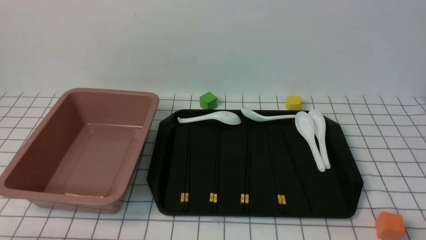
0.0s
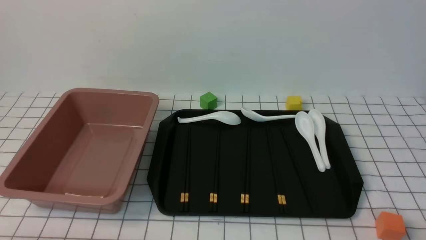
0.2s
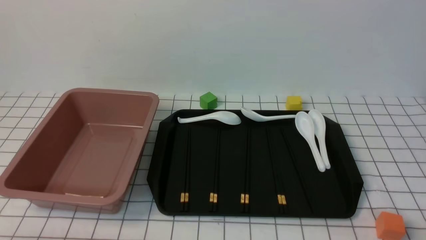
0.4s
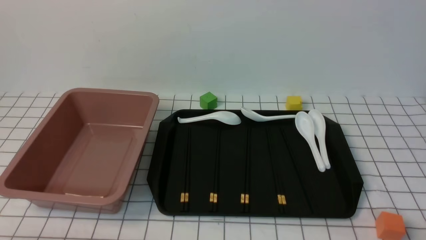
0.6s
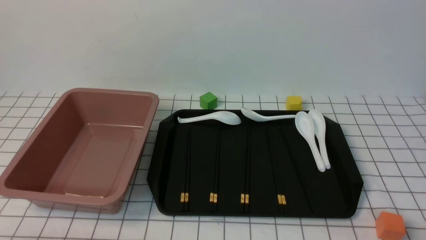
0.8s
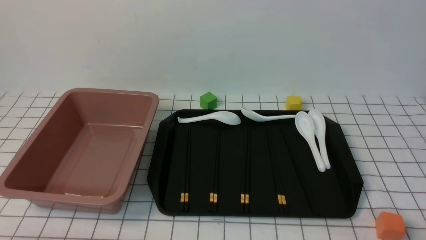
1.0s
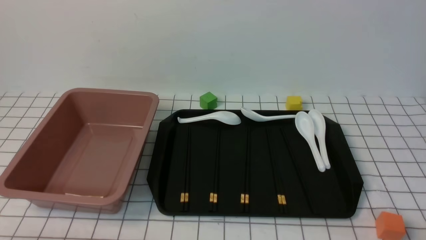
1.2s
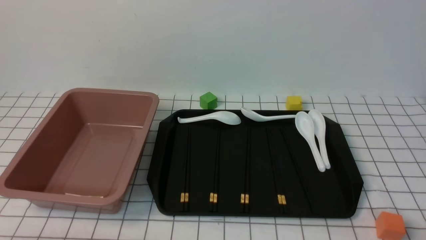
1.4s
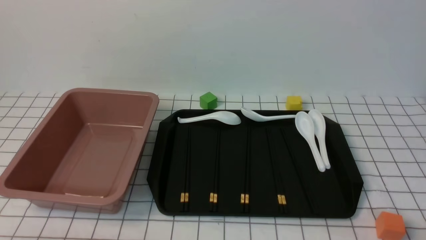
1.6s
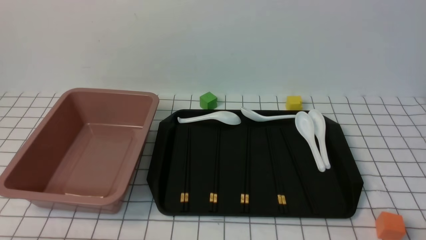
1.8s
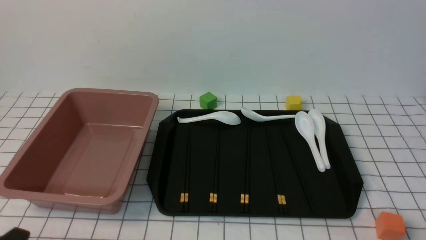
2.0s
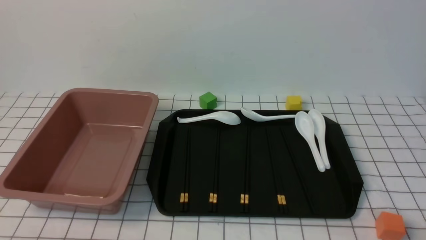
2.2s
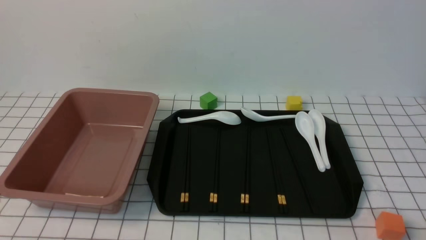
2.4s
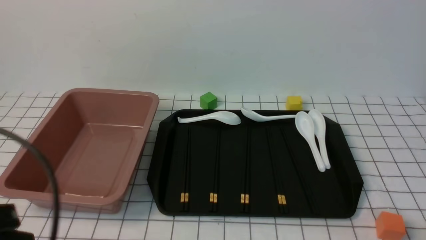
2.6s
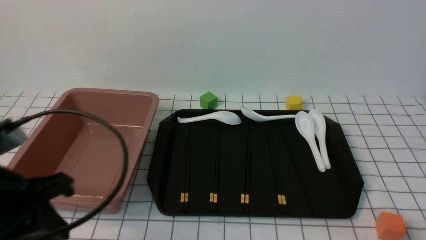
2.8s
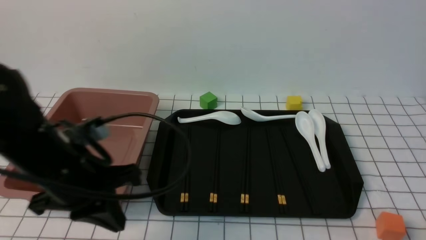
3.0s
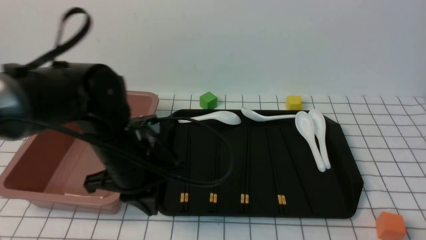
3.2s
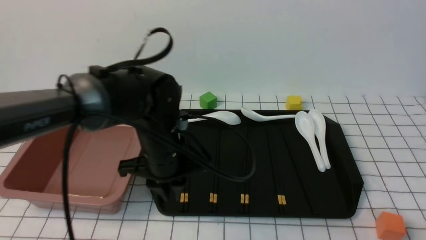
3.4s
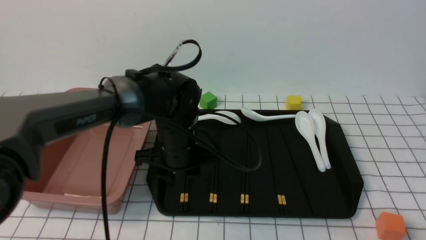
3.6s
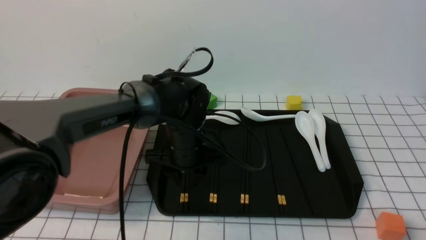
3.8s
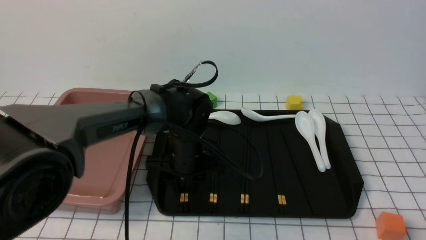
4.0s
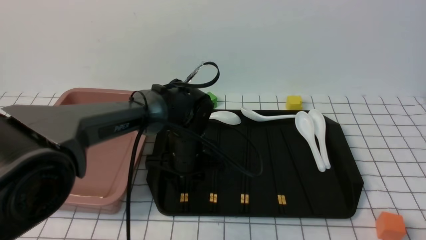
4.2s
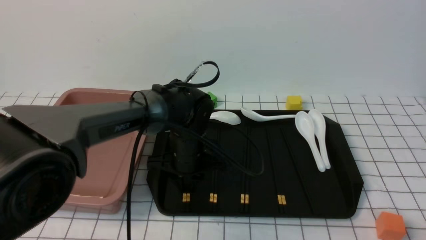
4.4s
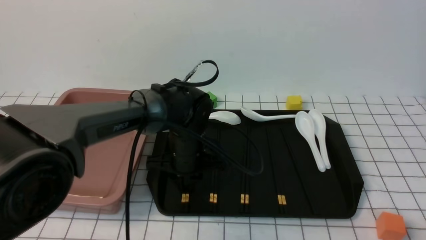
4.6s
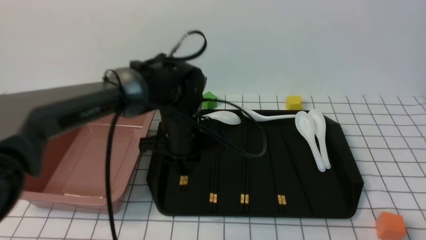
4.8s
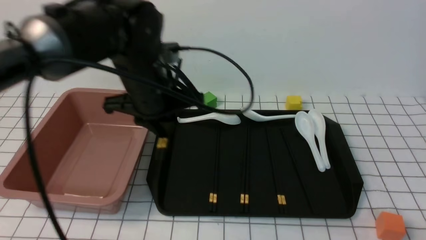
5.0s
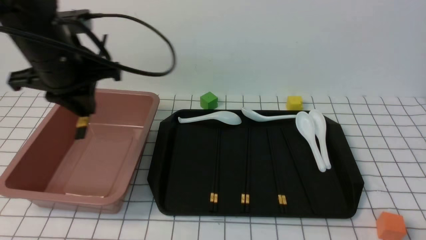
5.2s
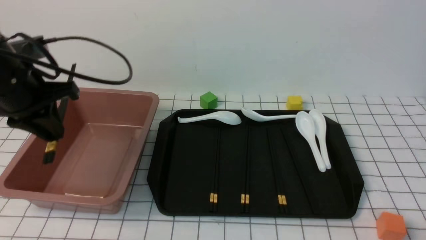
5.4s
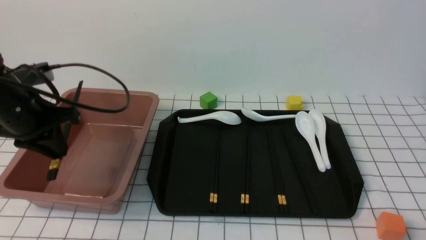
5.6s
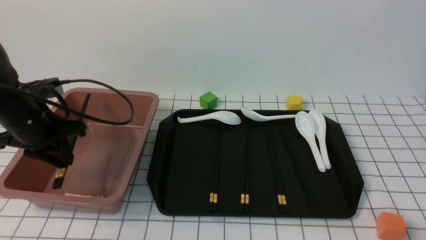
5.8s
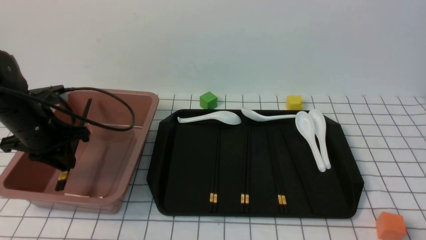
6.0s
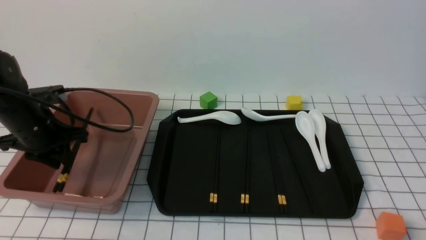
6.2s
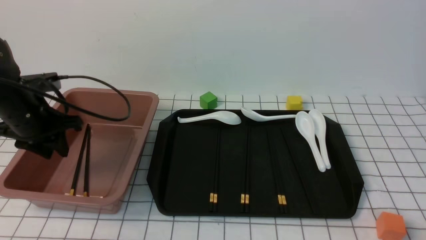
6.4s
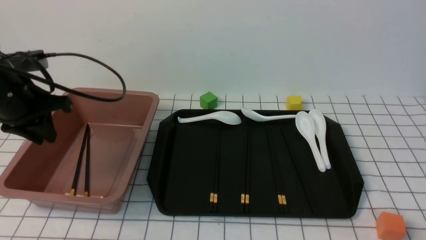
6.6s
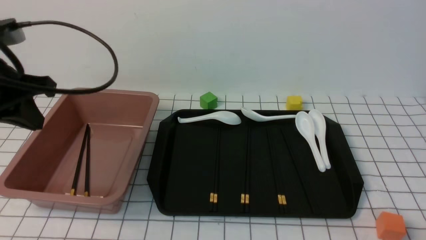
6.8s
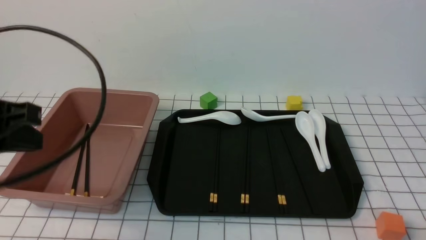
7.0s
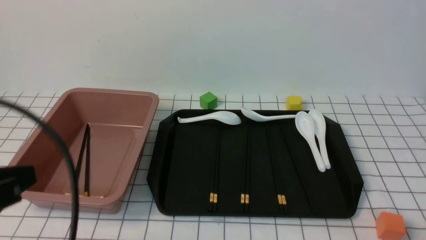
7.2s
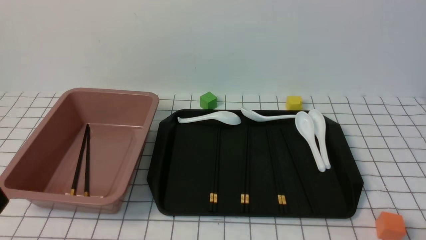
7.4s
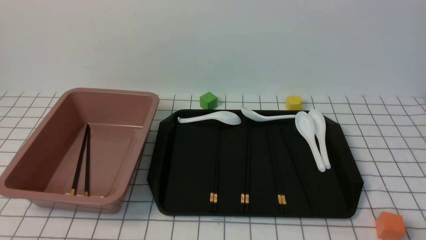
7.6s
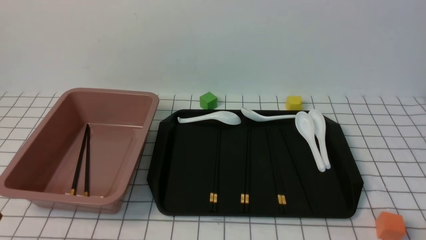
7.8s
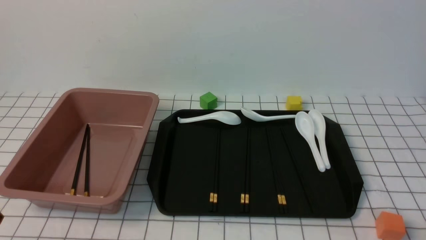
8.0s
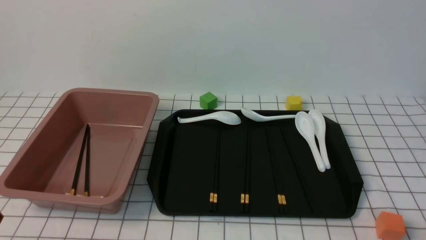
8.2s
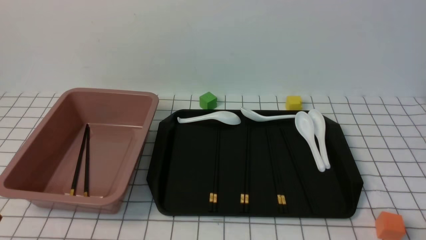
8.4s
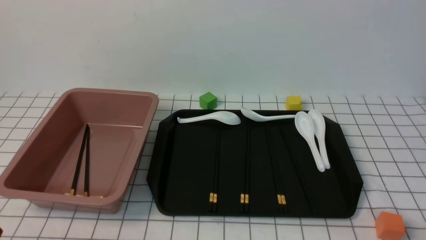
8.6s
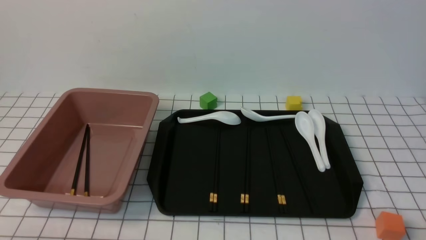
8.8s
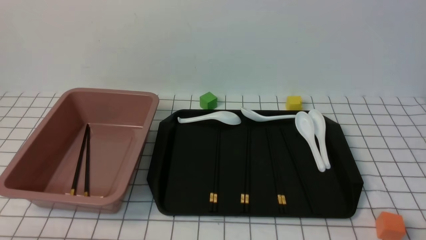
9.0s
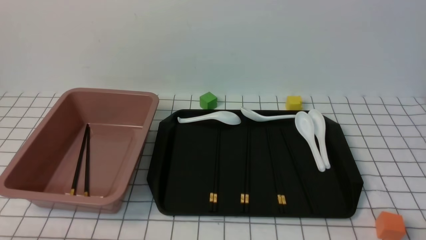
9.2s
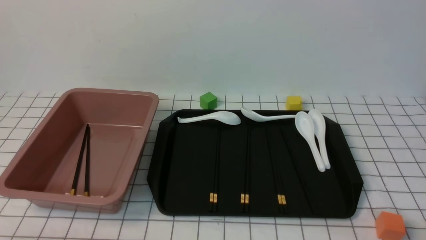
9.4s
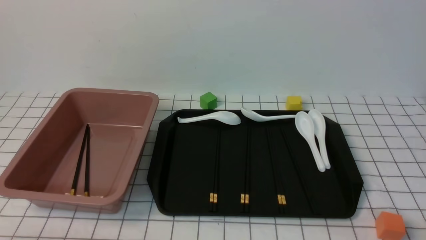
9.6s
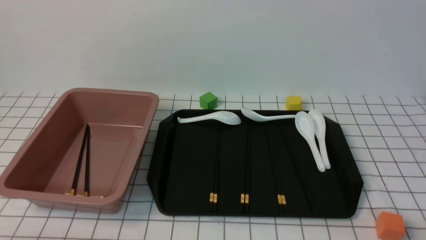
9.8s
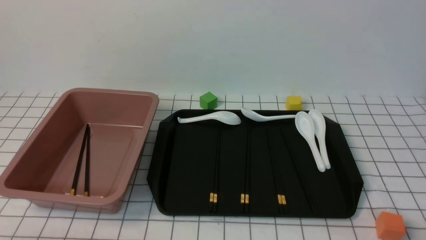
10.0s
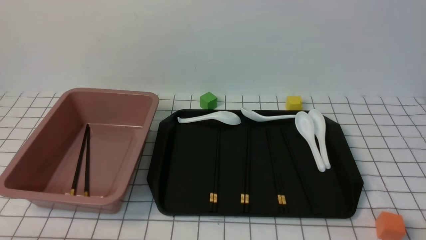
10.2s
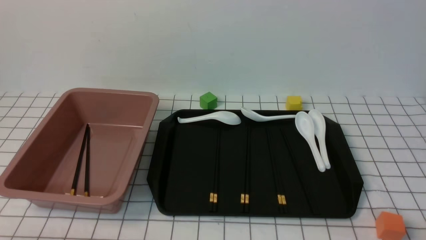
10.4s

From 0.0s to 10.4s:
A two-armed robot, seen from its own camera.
Step, from 0.0s to 4.6s: use the left arm to grab a pair of chopsticks.
Step, from 4.8s to 6.4s: use the left arm to put the chopsticks into the lunch box.
From 1.4s to 3.0s: The left gripper is displaced forward, upward and to the right by some 25 cm, and closes up.
From 3.0s to 4.4s: The left gripper heads forward, to the right and downward, covering about 20 cm, and opens.
From 4.4s to 6.0s: The left gripper is displaced to the left by some 25 cm.
From 6.0s to 7.4s: The left gripper is displaced backward by approximately 30 cm, and closes its fingers.
From 9.0s to 10.4s: Both grippers stay about where they are.

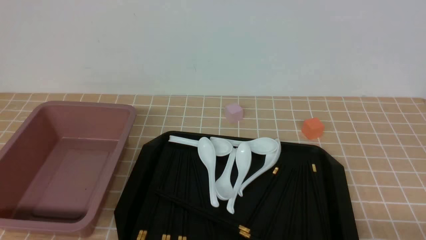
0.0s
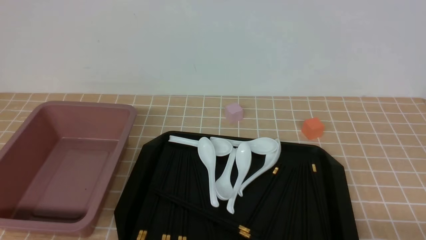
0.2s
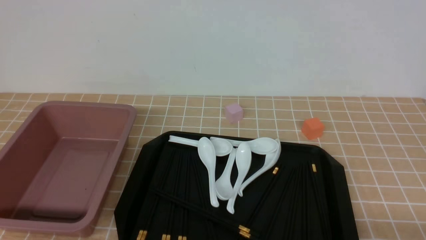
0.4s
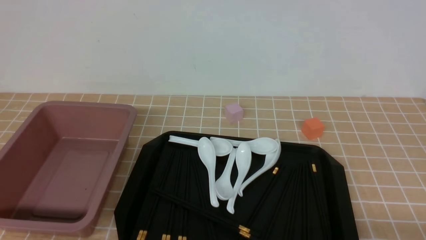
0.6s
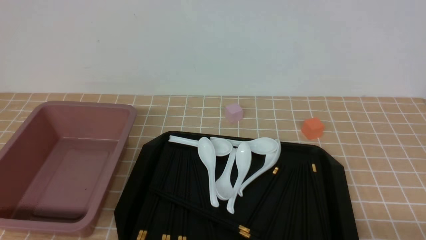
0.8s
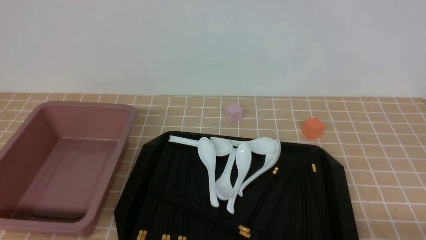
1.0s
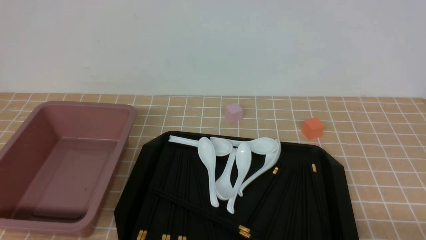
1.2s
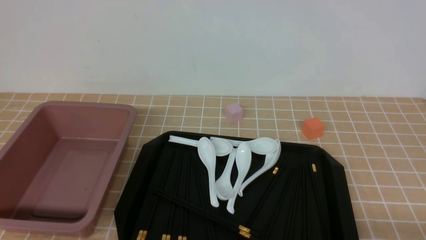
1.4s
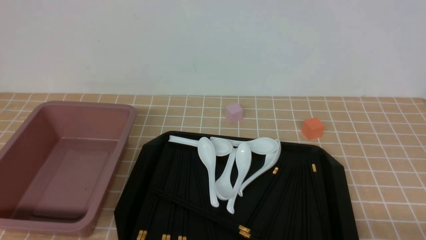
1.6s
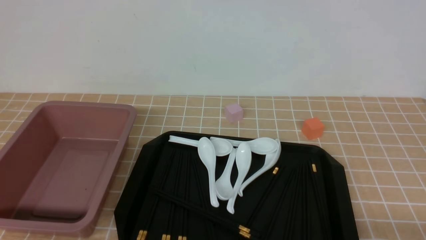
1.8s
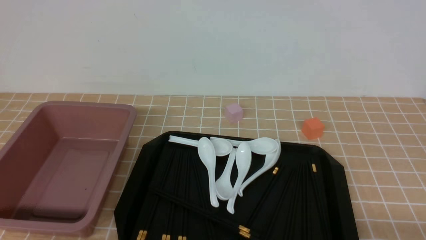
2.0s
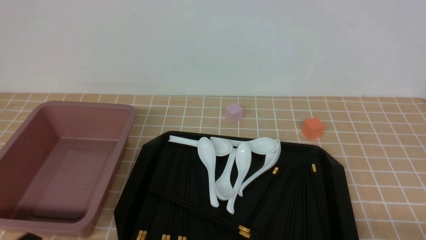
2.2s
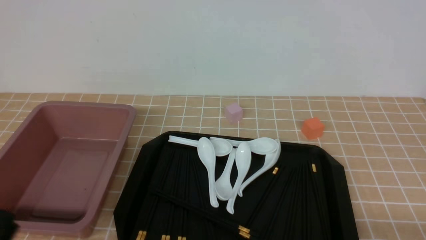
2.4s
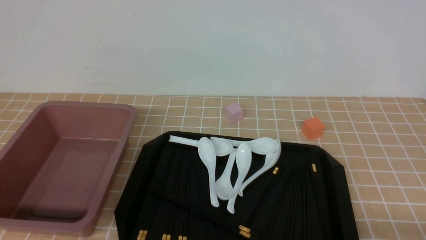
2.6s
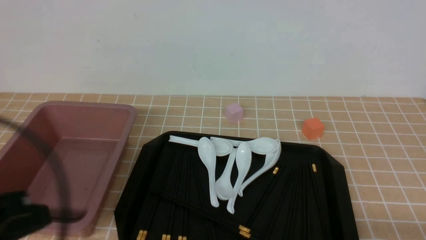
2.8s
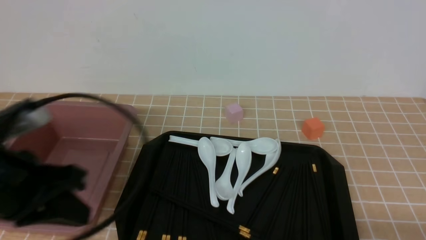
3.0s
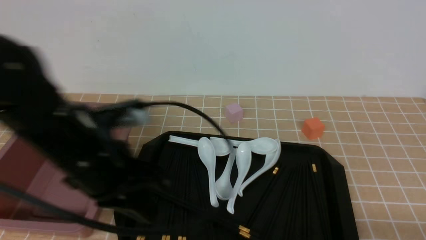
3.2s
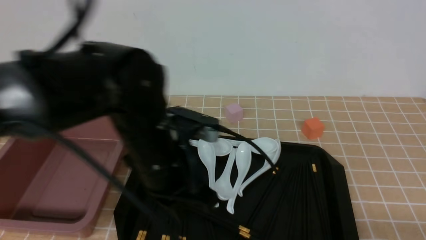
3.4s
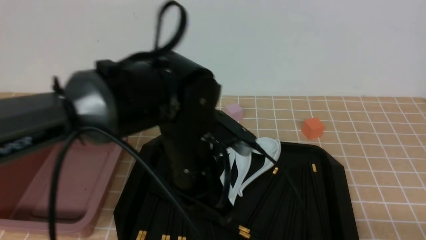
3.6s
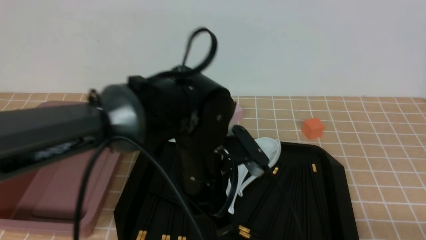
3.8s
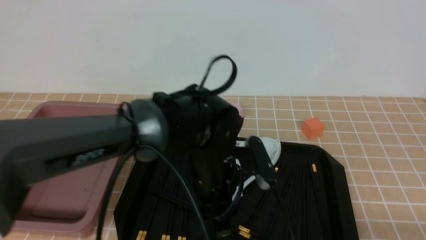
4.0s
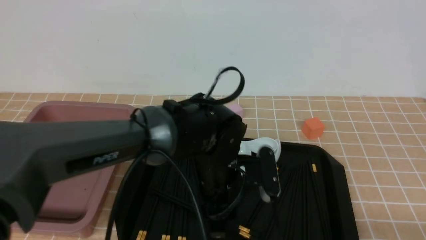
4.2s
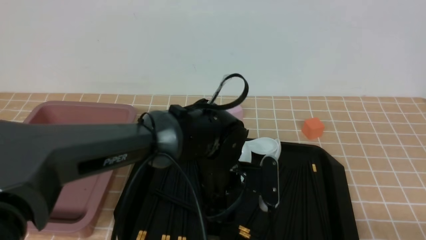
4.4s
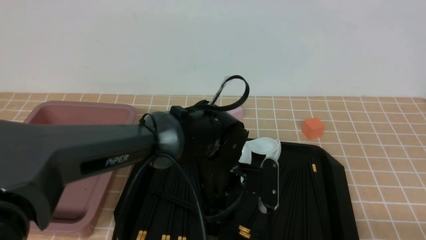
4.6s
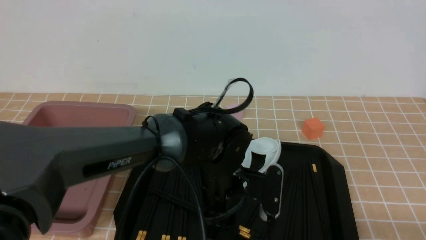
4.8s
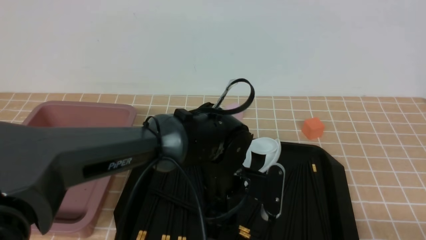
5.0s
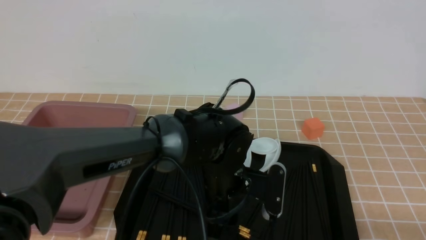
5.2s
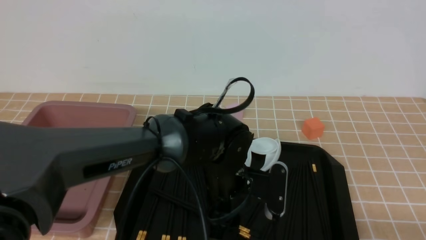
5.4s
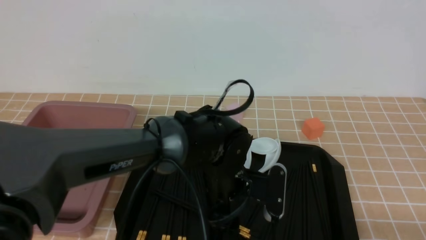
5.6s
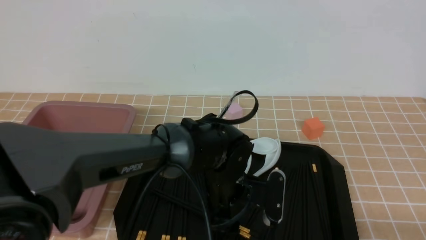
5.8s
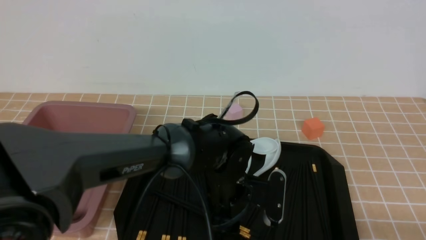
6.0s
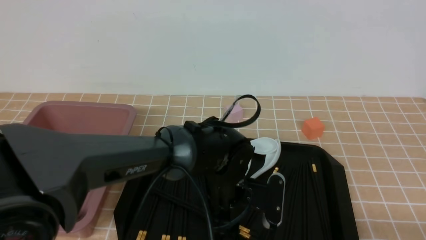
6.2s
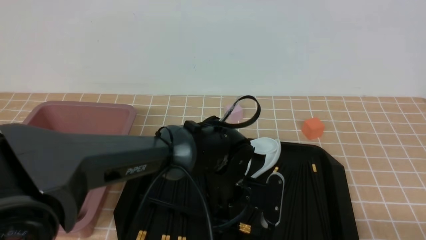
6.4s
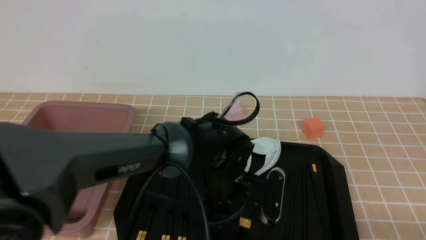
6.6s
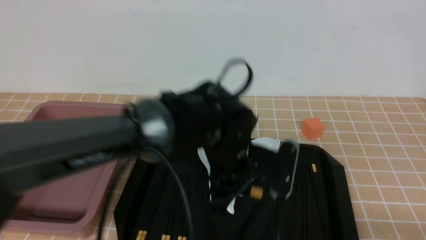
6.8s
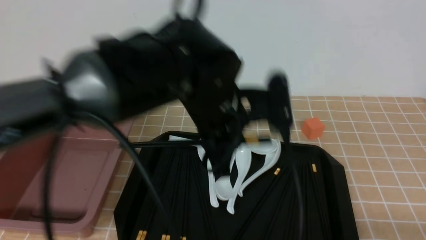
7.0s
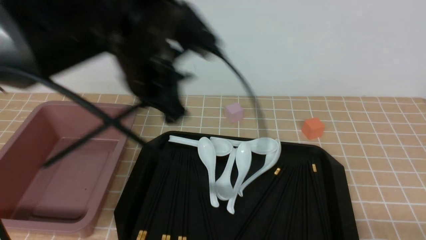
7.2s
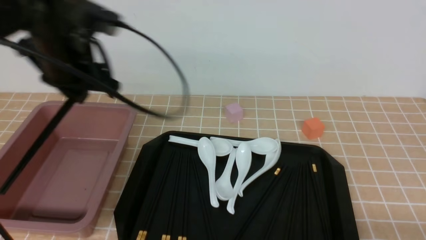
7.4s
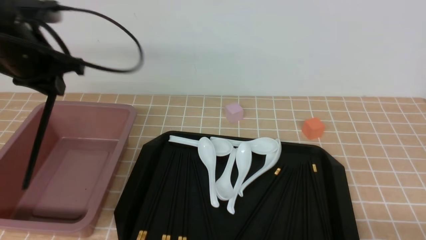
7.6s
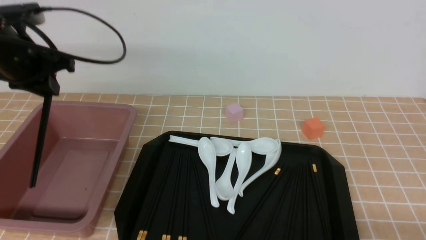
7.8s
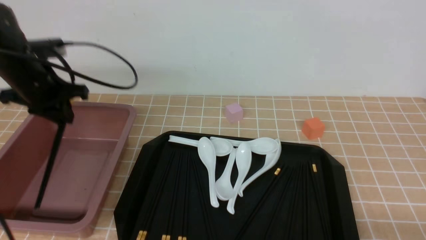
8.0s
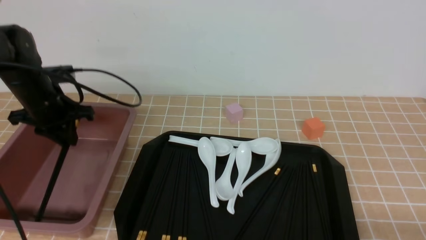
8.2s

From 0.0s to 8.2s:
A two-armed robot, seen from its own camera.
Step, from 0.0s to 6.8s: use the left arm to grab a pair of chopsticks.
From 0.0s to 1.6s: The two grippers keep their place.
From 1.6s to 3.2s: The left gripper travels forward, upward and to the right by approximately 25 cm, and closes up.
From 3.2s to 5.0s: The left gripper heads to the right and downward, covering roughly 20 cm, and opens.
From 5.0s to 6.6s: The left gripper closes up.
From 6.6s to 8.2s: The left gripper travels to the left by some 30 cm.
